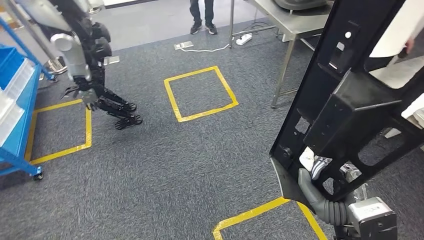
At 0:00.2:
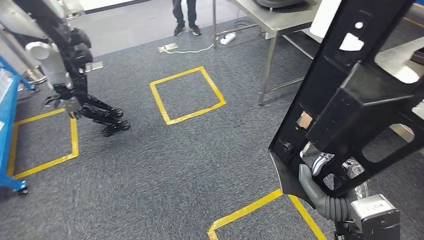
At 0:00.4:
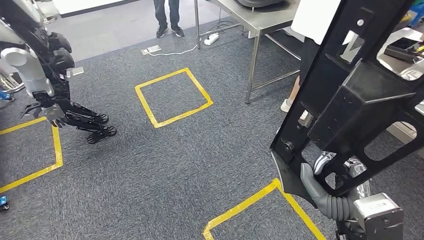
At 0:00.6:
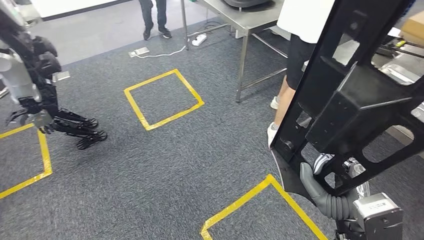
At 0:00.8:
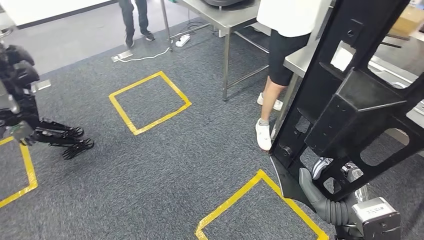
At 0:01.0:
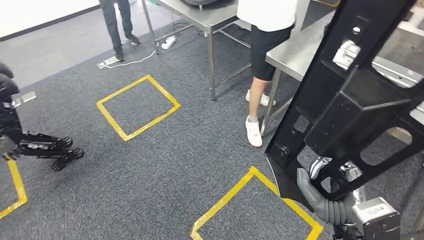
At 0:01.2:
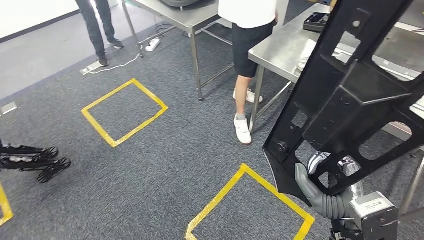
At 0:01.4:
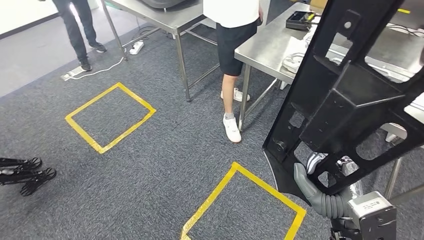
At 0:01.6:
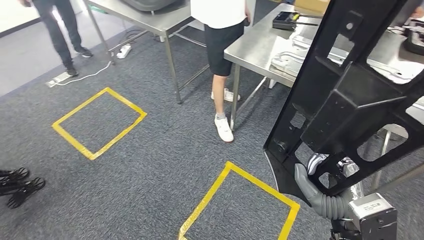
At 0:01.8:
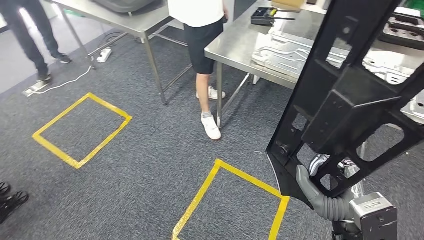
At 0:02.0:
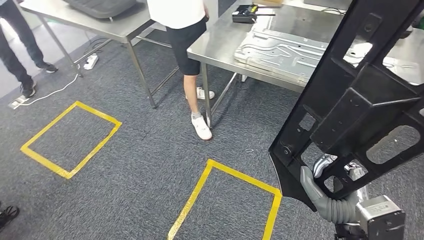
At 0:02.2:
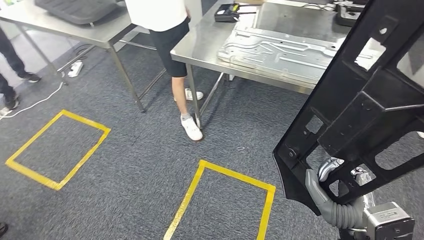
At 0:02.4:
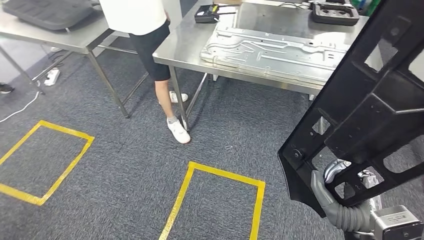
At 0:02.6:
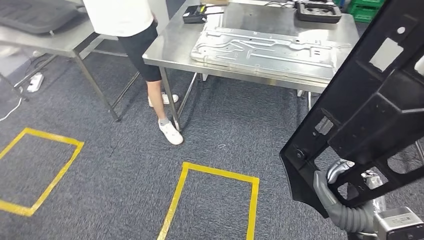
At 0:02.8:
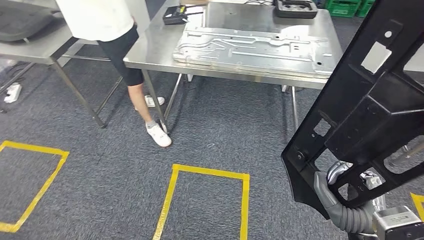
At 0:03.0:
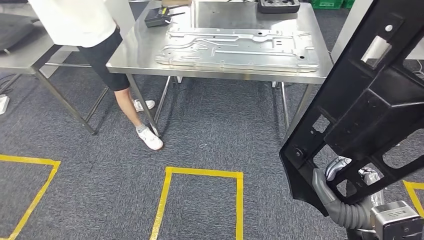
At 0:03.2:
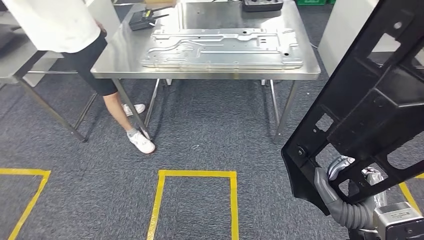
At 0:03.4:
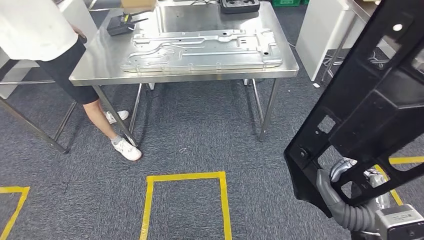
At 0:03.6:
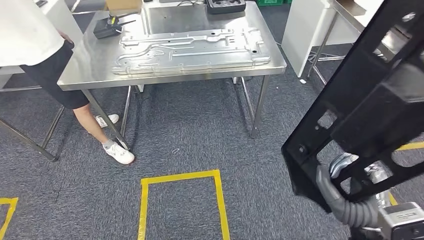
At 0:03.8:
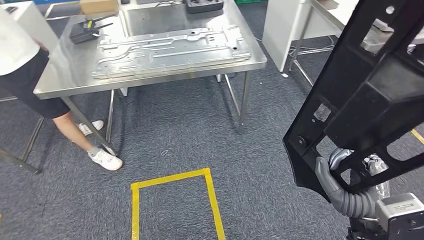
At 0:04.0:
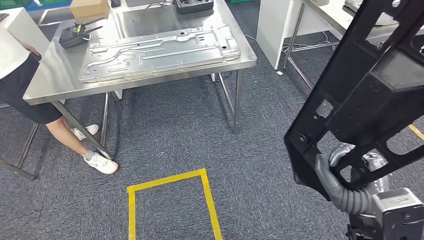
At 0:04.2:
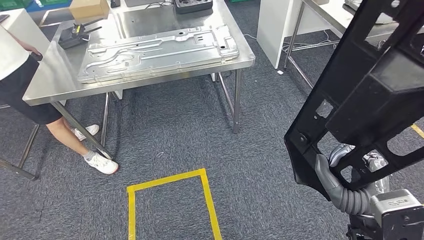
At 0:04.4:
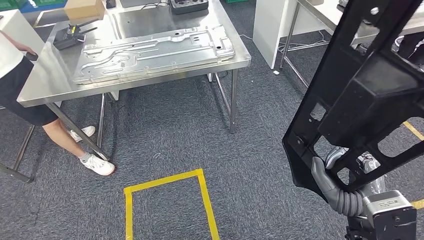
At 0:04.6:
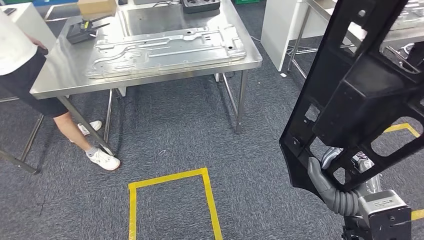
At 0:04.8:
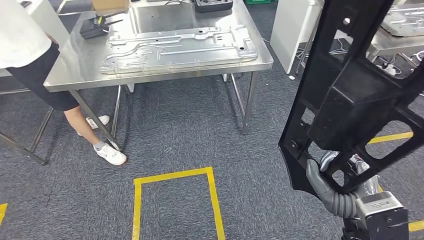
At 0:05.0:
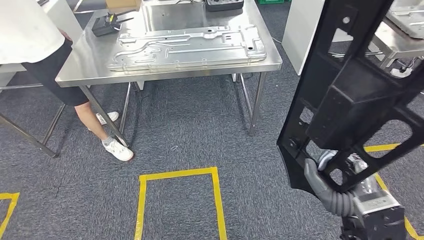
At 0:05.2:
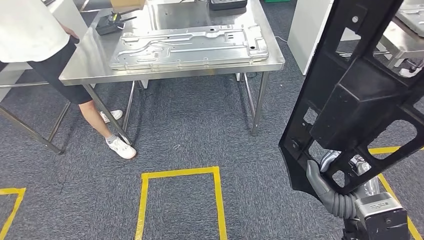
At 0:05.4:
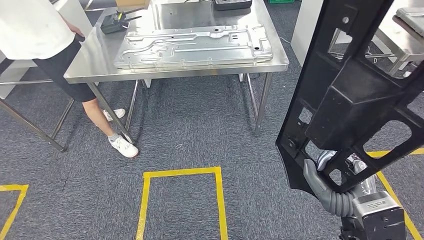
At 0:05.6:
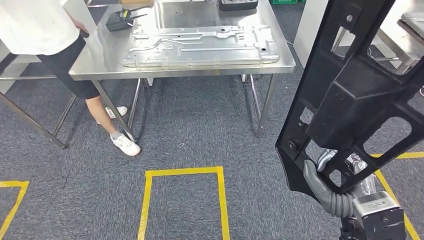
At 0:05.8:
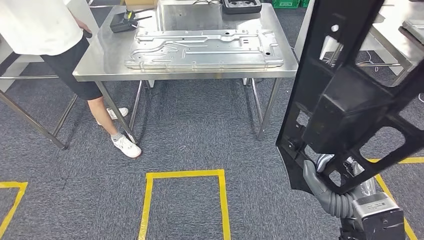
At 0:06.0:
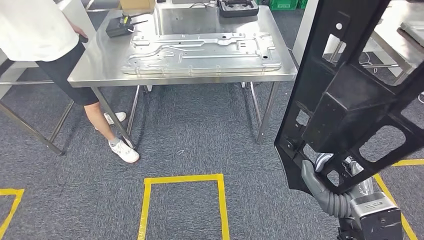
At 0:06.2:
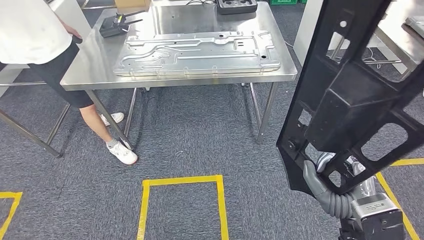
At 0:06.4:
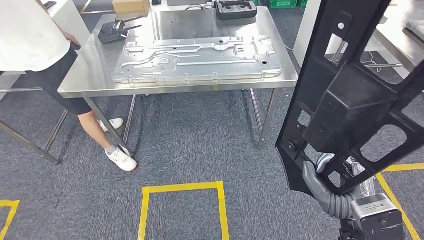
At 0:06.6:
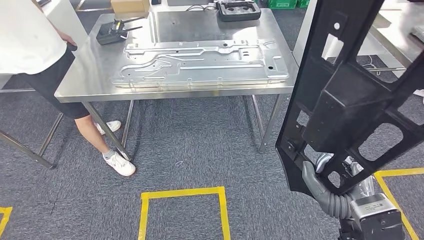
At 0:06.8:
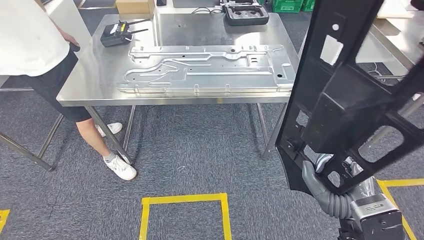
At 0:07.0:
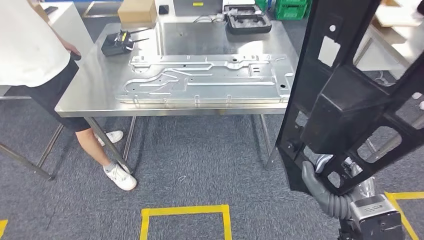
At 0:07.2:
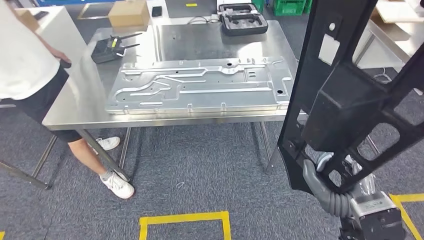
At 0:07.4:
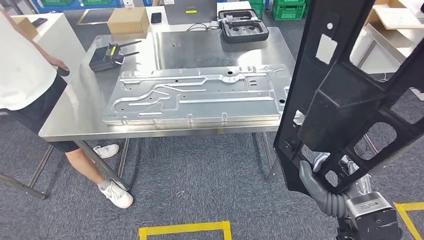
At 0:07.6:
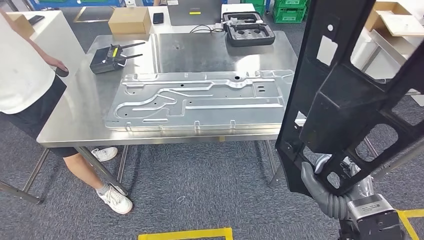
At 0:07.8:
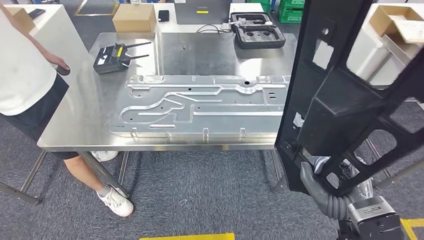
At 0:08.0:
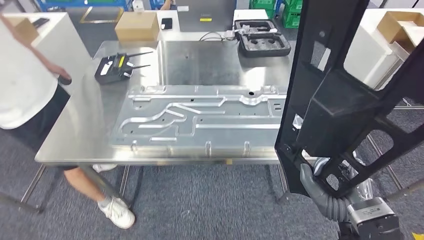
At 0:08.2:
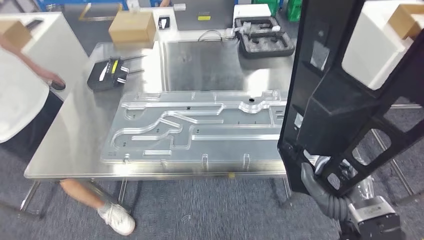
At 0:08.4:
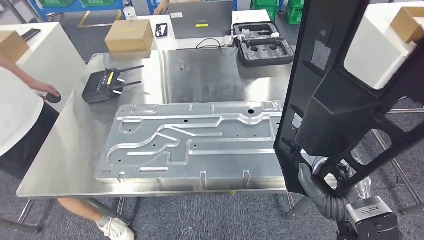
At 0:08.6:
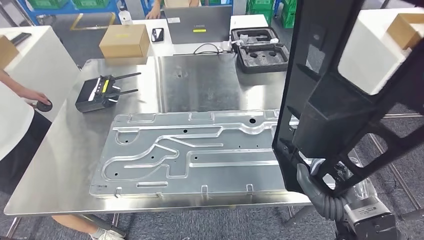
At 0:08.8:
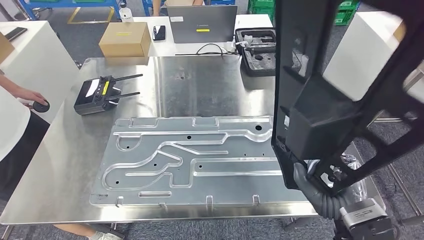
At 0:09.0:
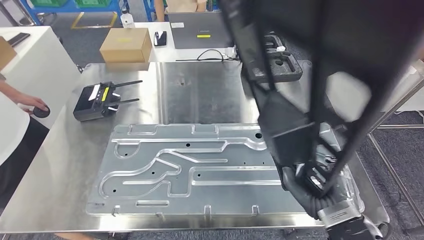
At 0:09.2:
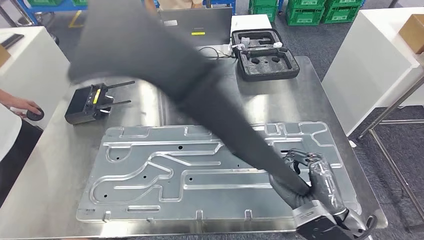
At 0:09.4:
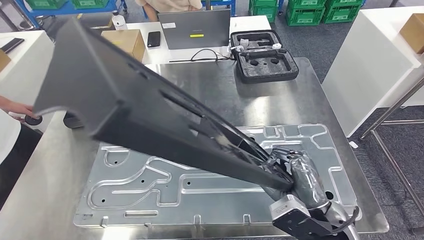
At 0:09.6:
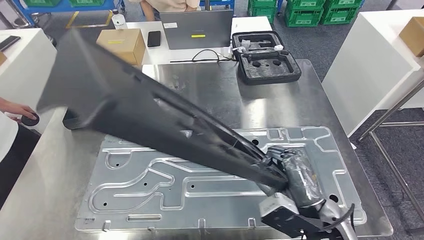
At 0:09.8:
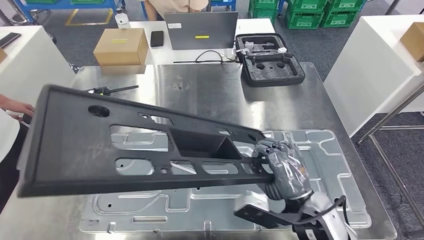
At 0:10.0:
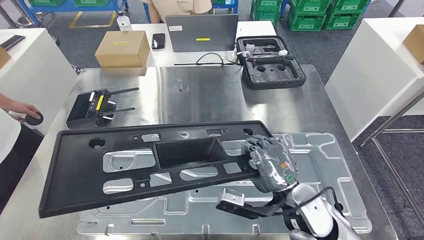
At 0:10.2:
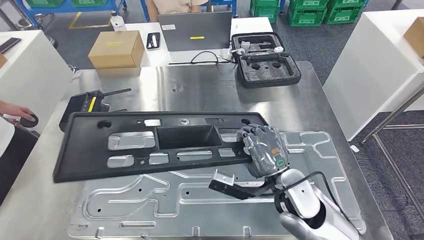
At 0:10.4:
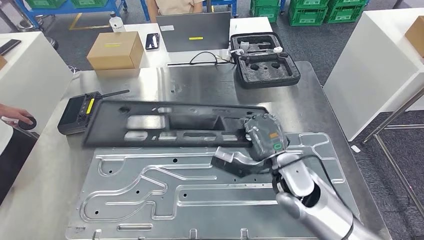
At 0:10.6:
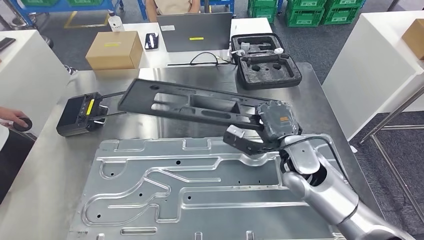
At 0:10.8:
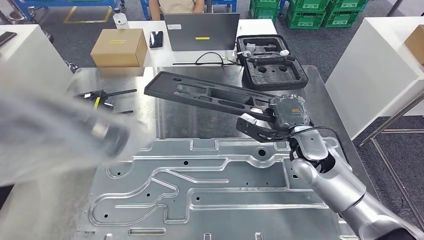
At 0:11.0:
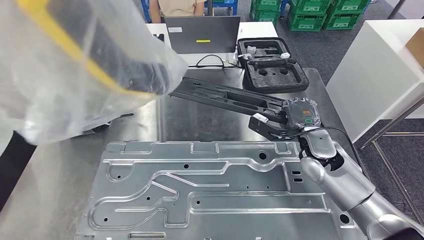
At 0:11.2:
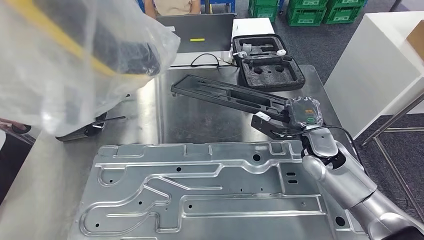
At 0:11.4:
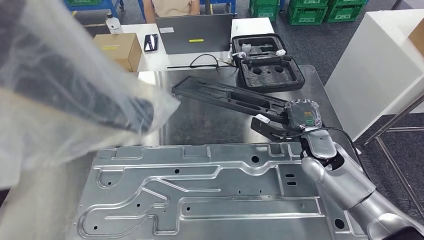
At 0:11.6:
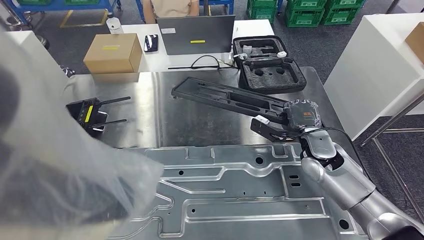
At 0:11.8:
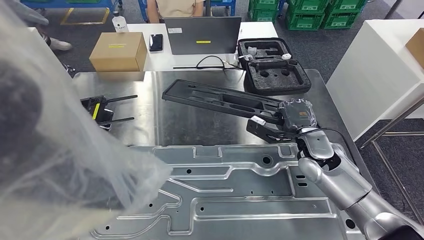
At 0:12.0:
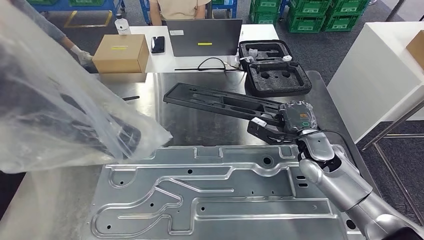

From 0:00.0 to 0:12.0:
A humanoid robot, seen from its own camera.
Step, from 0:00.0 to 0:08.2: Move the large material to the workbench.

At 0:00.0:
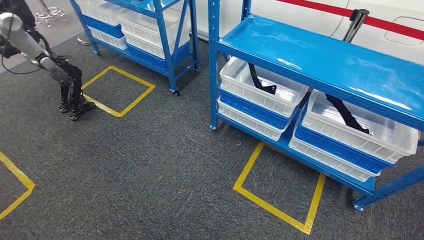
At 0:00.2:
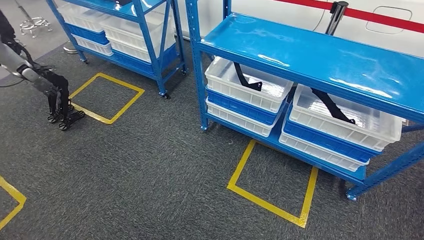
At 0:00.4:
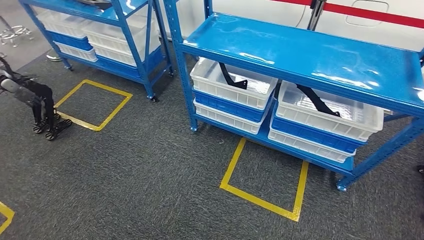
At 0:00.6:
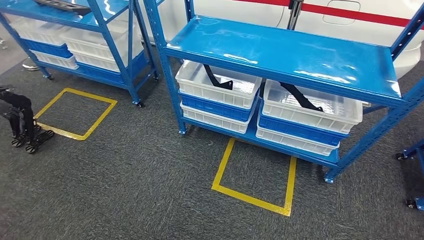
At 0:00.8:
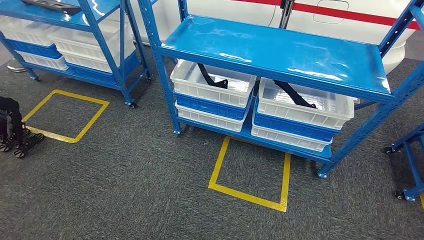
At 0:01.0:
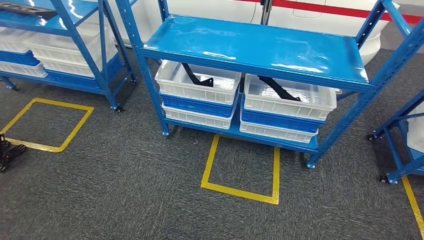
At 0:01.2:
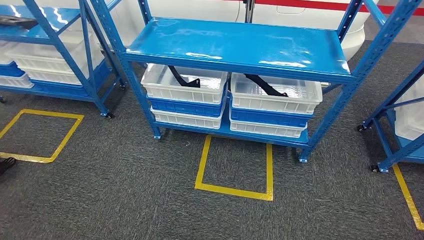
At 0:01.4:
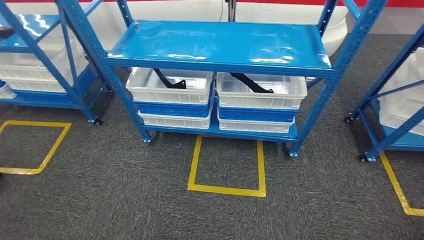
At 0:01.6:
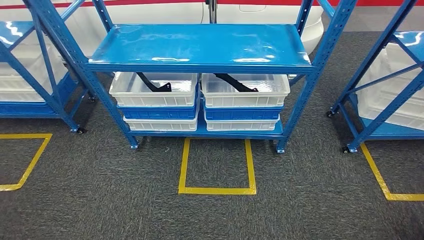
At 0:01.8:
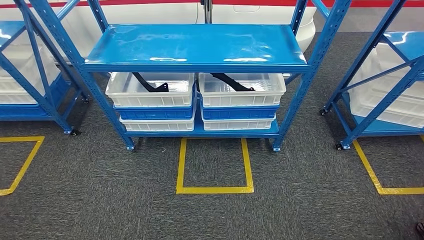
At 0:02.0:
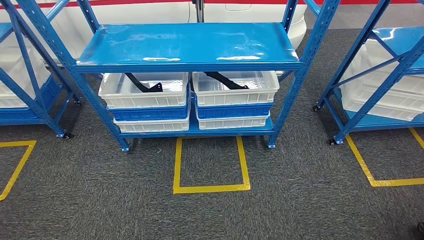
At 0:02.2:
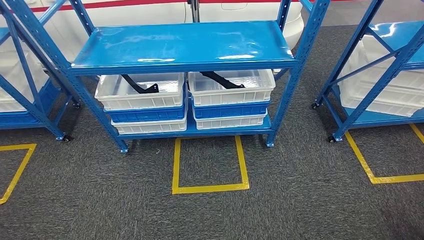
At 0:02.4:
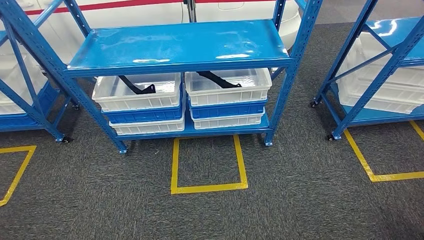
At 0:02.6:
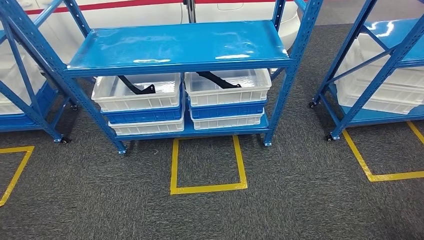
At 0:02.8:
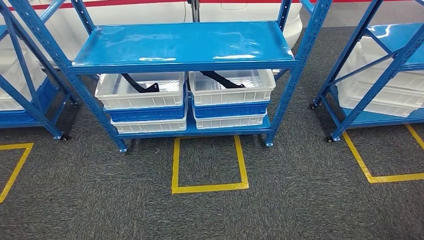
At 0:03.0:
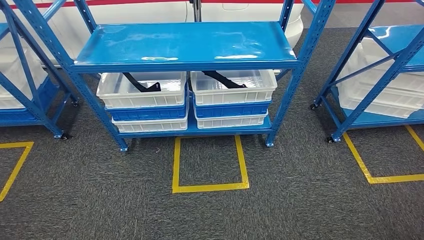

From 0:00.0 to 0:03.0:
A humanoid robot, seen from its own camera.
Step, from 0:00.0 to 0:03.0: Move to the initial position of the shelf.
